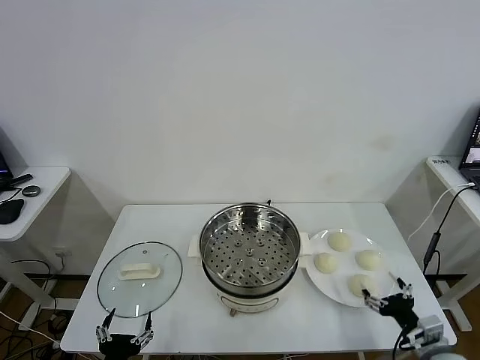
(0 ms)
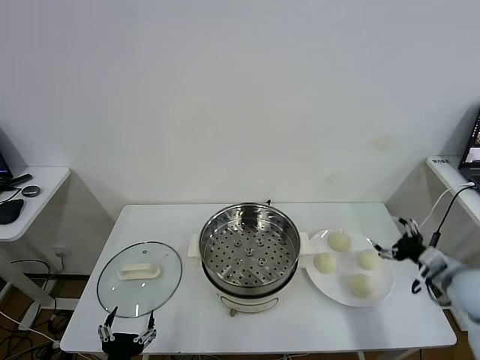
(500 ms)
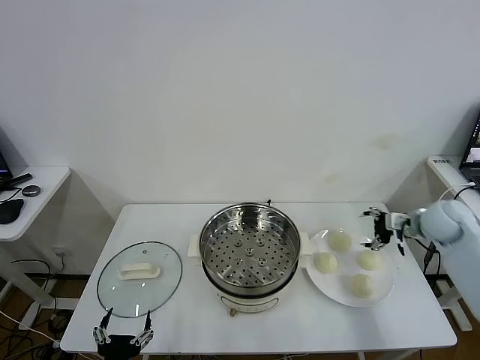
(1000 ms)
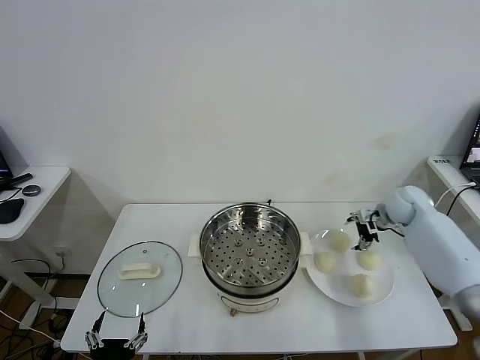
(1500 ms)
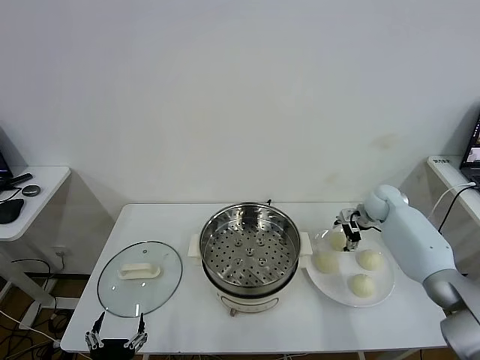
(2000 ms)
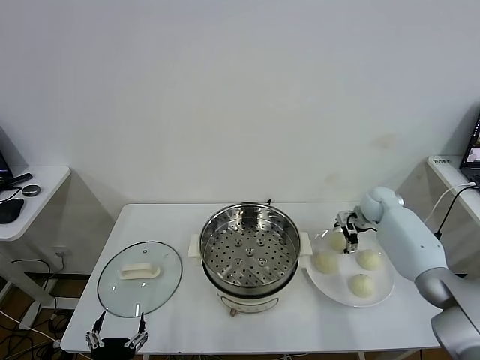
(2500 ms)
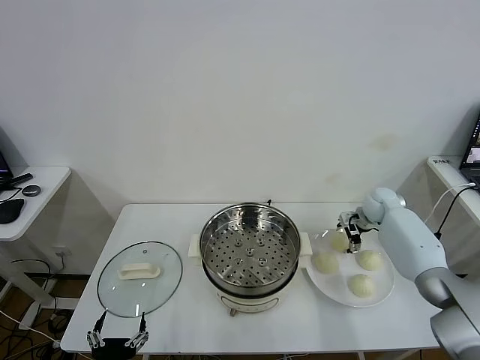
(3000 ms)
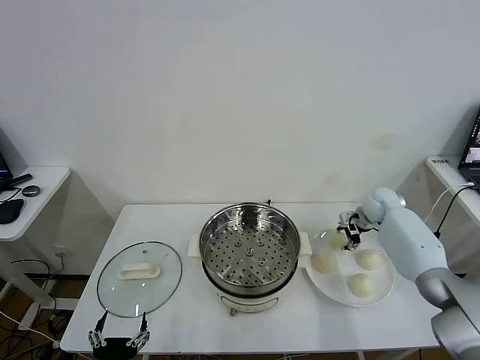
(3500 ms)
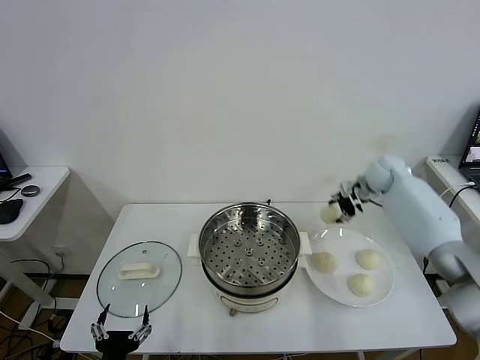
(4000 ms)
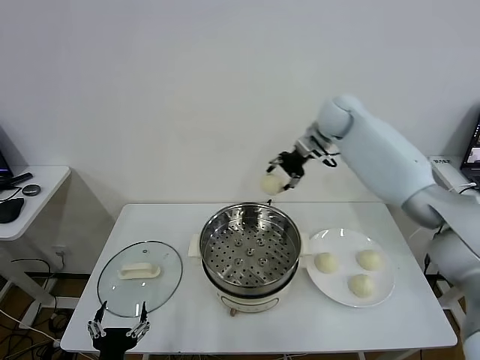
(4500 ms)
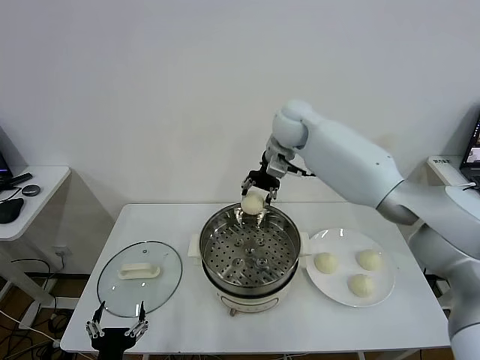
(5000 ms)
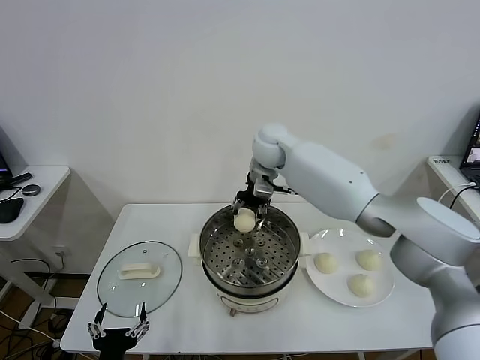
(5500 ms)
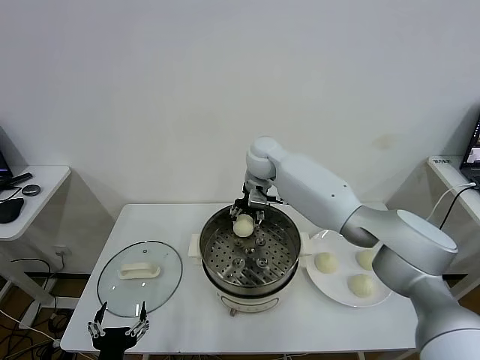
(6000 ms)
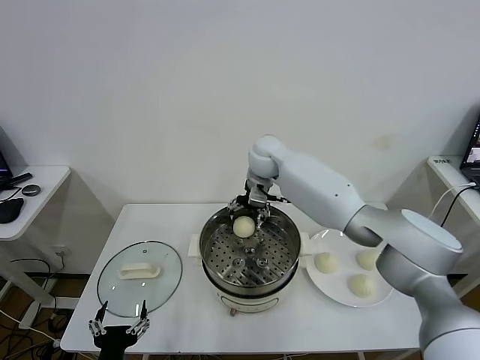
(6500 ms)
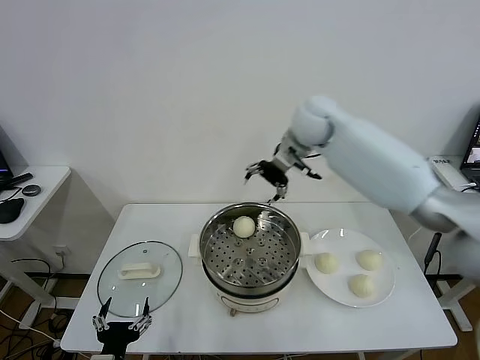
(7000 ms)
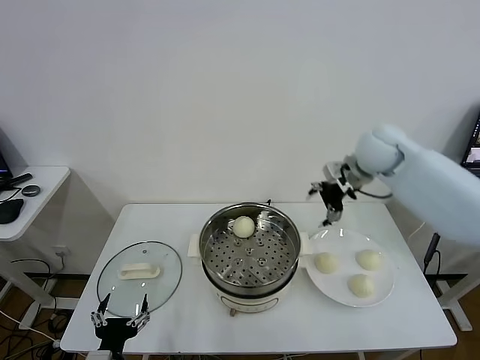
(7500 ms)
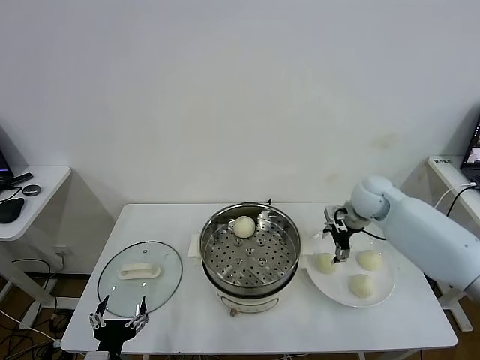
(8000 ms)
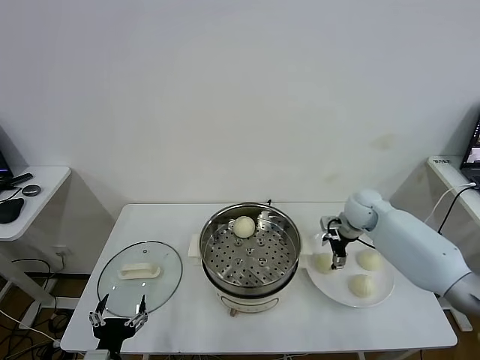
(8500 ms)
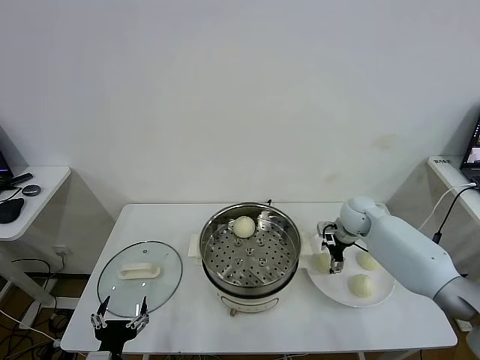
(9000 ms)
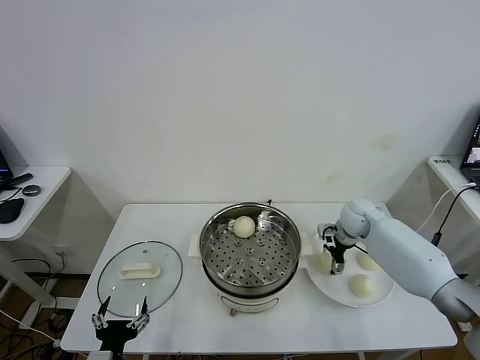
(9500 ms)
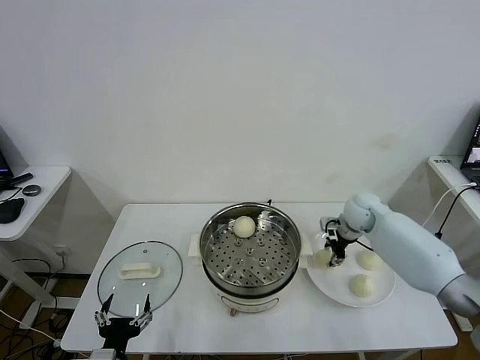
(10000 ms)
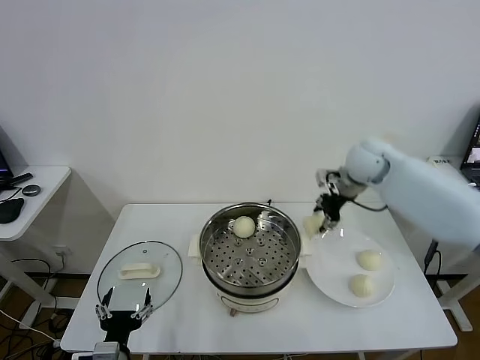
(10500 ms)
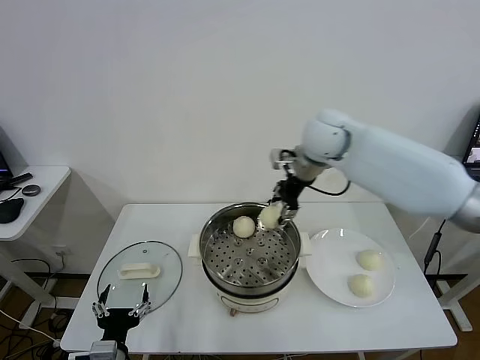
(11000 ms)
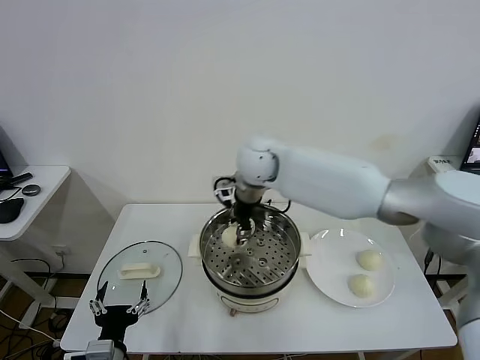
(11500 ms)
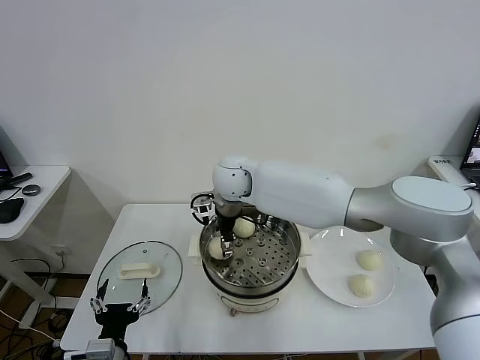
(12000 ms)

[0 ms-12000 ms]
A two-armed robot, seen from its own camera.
Task of the whole recording: take steamed baozi put them in steamer.
Step, 0 ms to 3000 ms: Grasp the baozi in the plate with right gripper.
Step, 3500 ms to 6000 ms: Place the baozi on the steamer with right gripper.
Step, 7000 ms to 9500 ms: Grasp the baozi in the plate with right gripper.
2000 ms to 4000 ms: The right gripper goes some 15 cm upward, and closes.
4000 ms to 6000 ms: The right gripper goes roughly 30 cm to the left.
6000 ms to 8000 ms: The right gripper travels to the right by about 25 cm, and opens.
8000 ms to 10000 ms: The right gripper closes up.
10000 ms to 12000 ms: The right gripper heads to the left, covering about 35 cm, and opens its fingers.

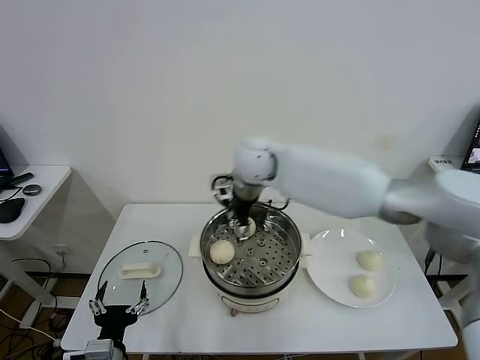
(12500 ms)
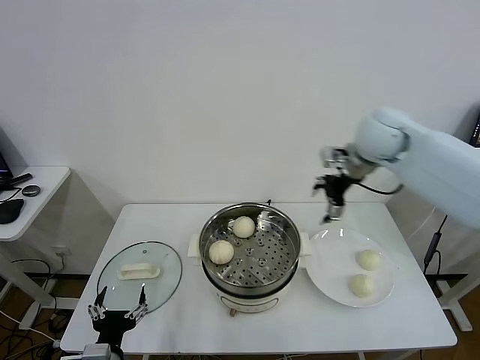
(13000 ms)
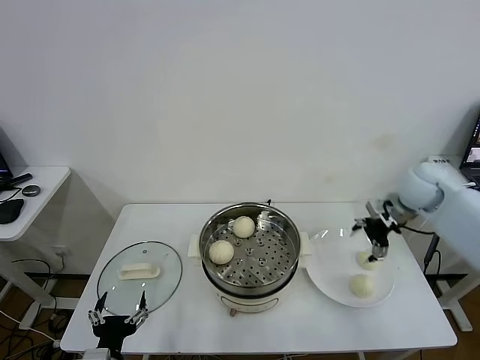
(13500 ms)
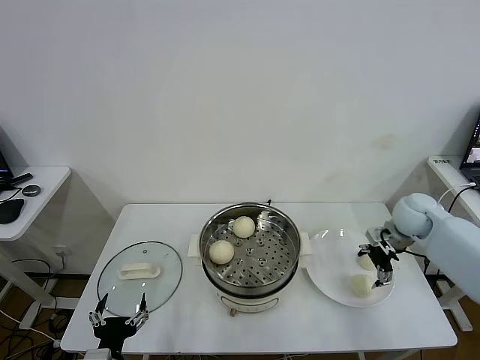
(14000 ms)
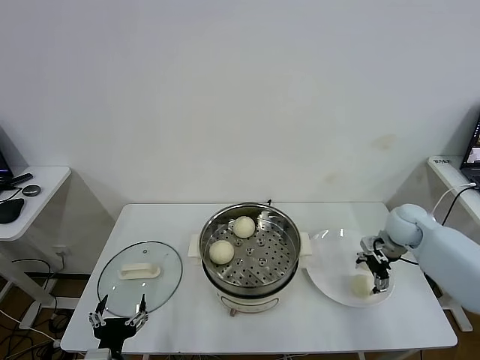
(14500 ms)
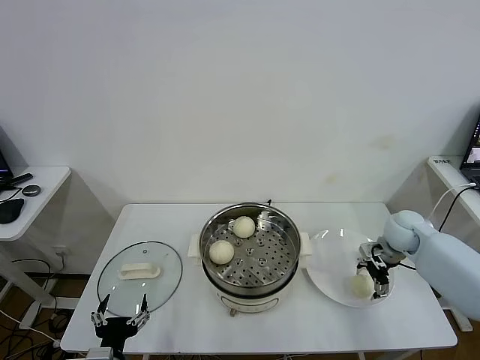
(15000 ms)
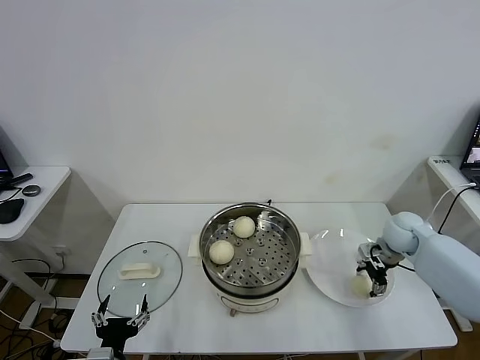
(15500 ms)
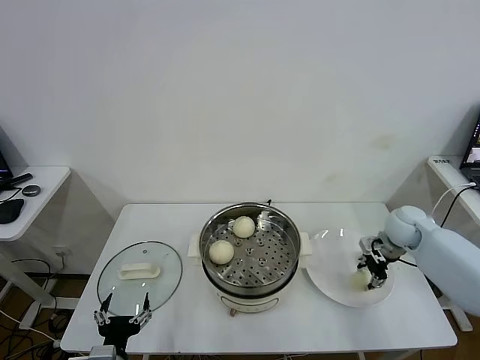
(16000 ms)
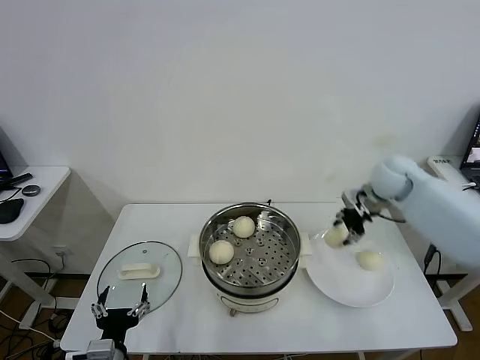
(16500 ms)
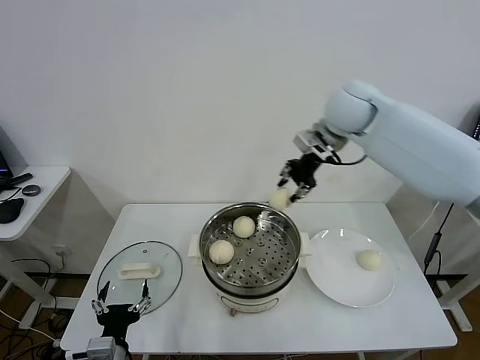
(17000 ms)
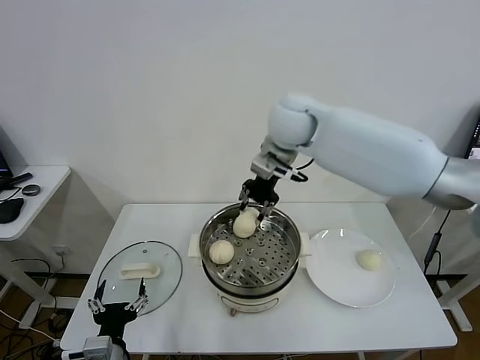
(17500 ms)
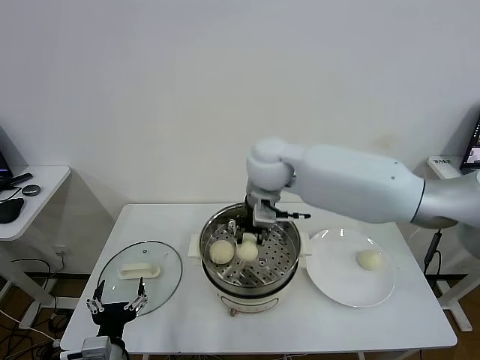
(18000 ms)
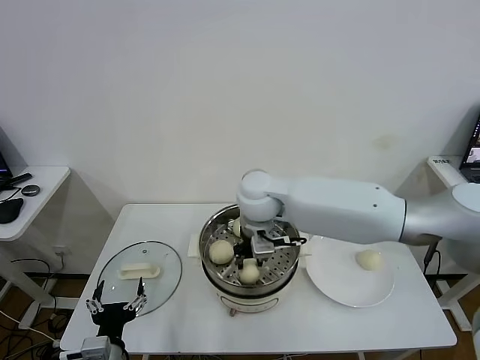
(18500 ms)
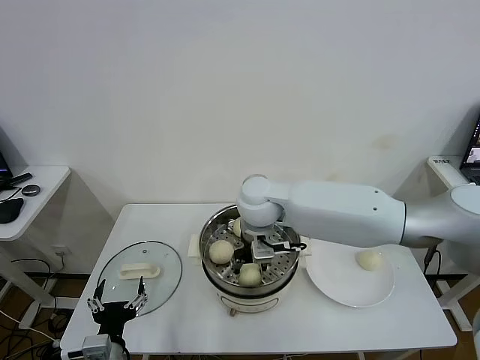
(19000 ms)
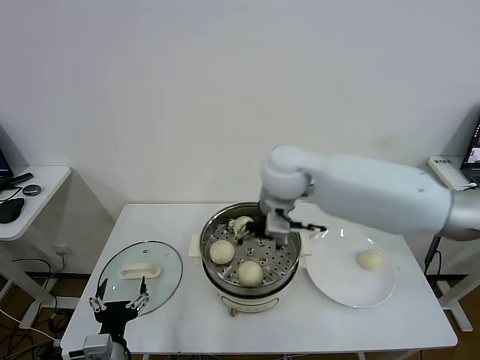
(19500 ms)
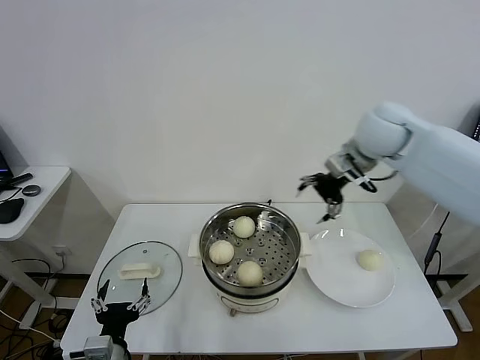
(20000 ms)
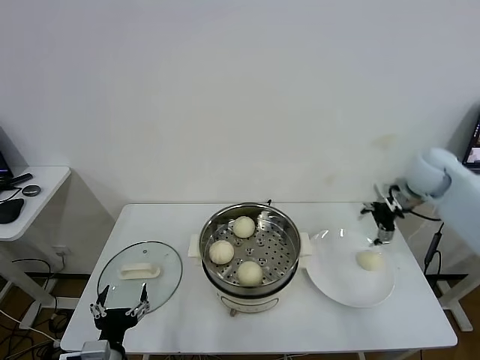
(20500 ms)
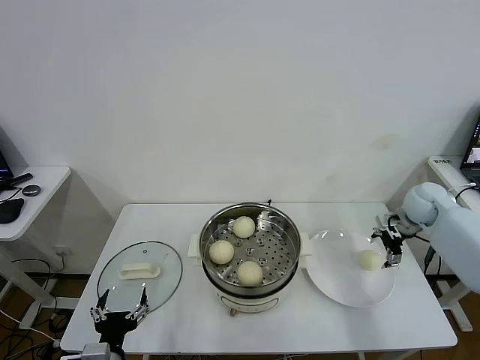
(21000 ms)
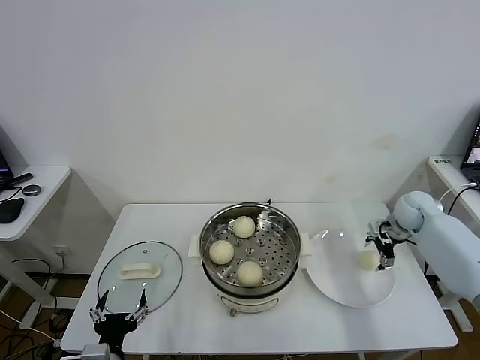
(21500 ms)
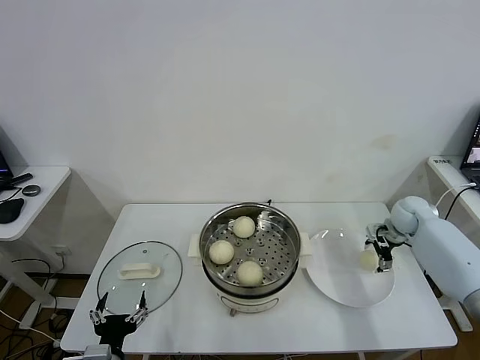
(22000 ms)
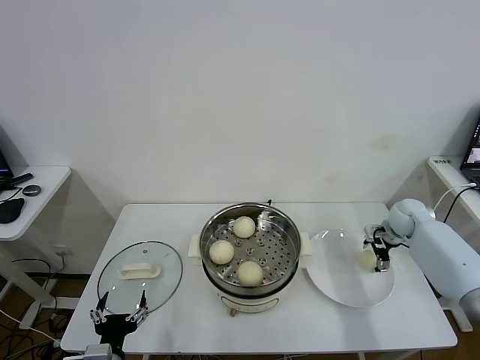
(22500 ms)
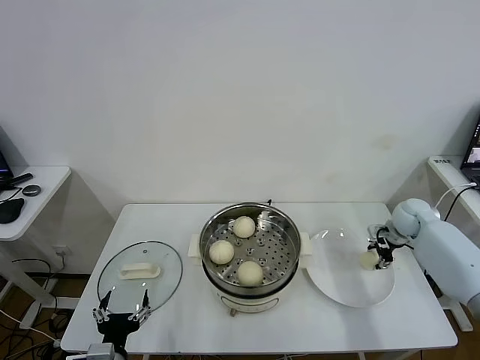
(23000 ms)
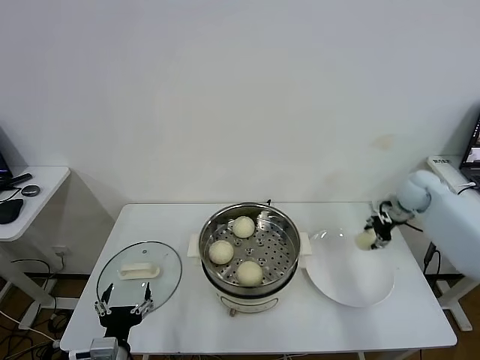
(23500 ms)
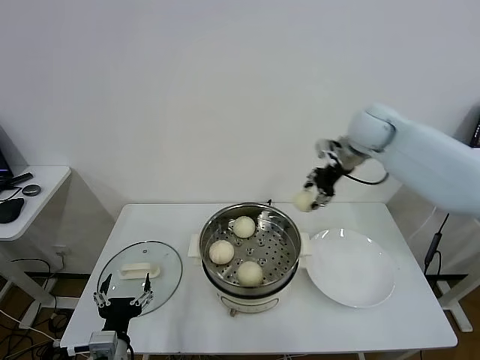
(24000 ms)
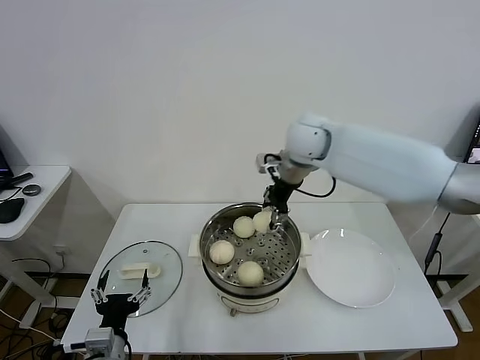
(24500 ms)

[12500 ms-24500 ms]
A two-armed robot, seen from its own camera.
Task of the whole recording: take steamed baozi put them in steamer.
Step, 12500 ms to 15500 ms: Grasp the baozi in the plate with right gripper.
Step, 16000 ms to 19000 ms: Place the baozi on the steamer with right gripper.
Step, 20000 ms to 22500 ms: Grasp the baozi in the plate with right gripper.
12500 ms to 14500 ms: The right gripper shifts about 40 cm to the right and downward.
14500 ms to 16500 ms: The right gripper shifts approximately 15 cm upward, to the left and forward, and closes its fingers.
16500 ms to 18500 ms: The right gripper shifts roughly 30 cm to the left.
18500 ms to 20500 ms: The right gripper is displaced to the right by some 40 cm, and opens its fingers.
20500 ms to 22500 ms: The right gripper moves downward, about 15 cm.
22500 ms to 24500 ms: The right gripper goes about 40 cm to the left and upward, and closes its fingers.

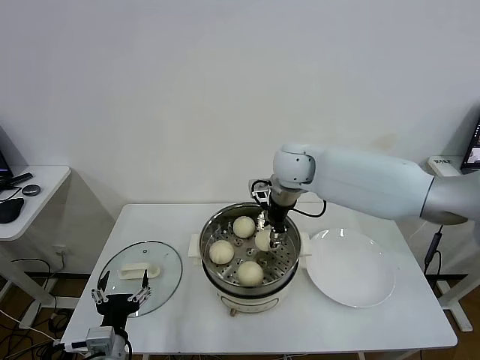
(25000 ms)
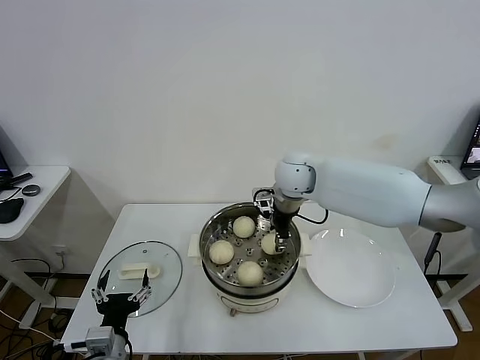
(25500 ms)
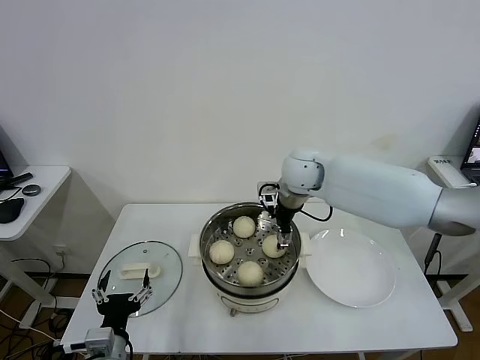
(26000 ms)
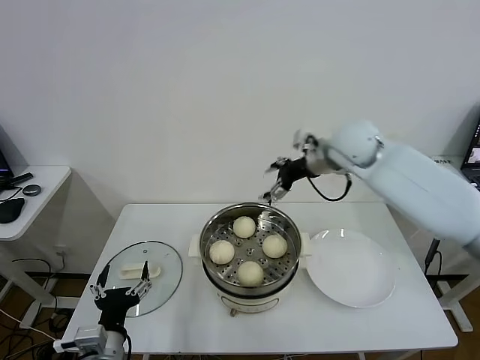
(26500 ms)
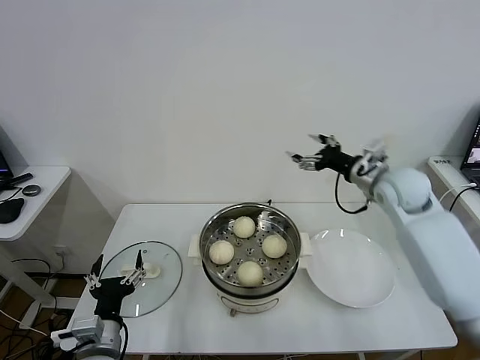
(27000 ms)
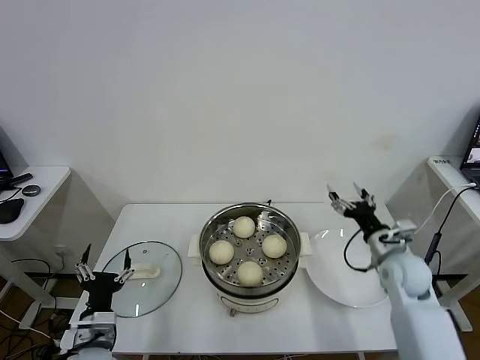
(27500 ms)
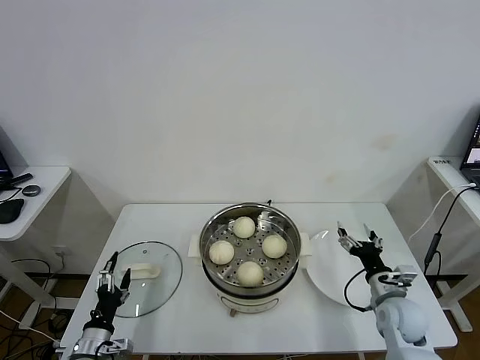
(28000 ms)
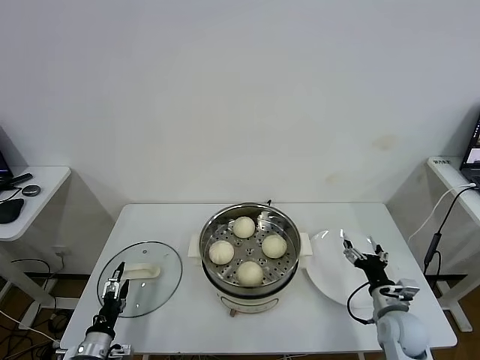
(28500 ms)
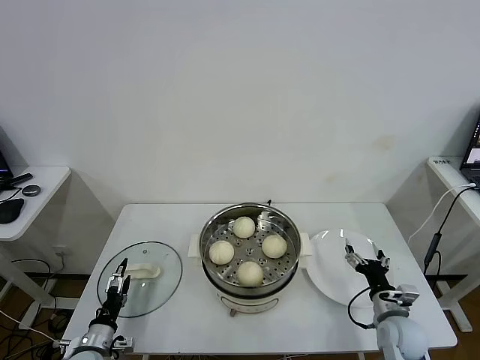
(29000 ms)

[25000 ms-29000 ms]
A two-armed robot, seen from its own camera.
Task of the whole recording: take steamed baozi put them in steamer.
25000 ms to 27000 ms: The right gripper shifts about 20 cm to the right, and opens up.
27000 ms to 29000 ms: The left gripper travels downward and to the left by roughly 20 cm. The right gripper heads downward and backward, covering approximately 35 cm.
